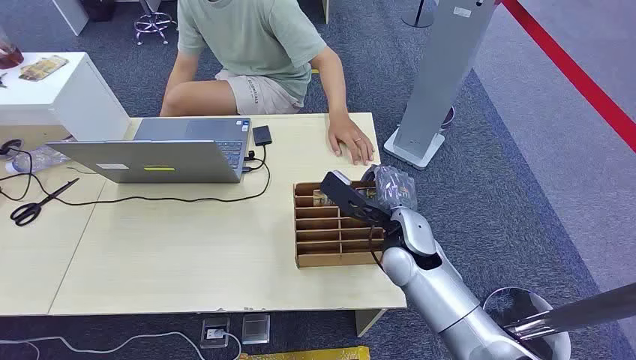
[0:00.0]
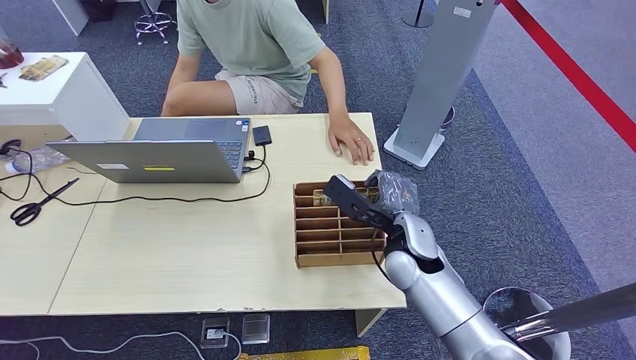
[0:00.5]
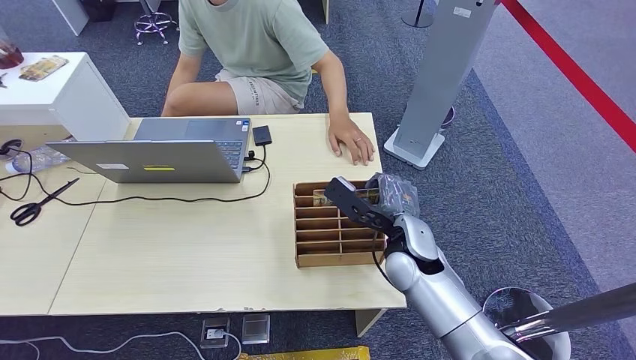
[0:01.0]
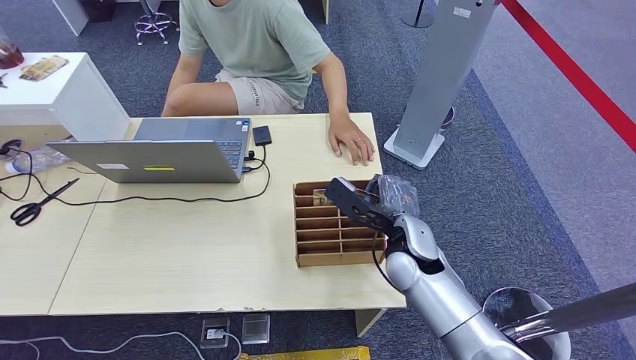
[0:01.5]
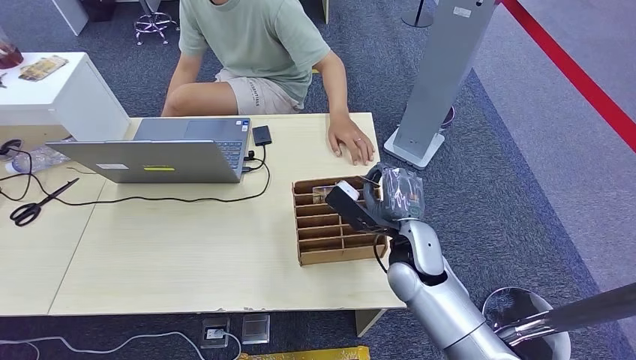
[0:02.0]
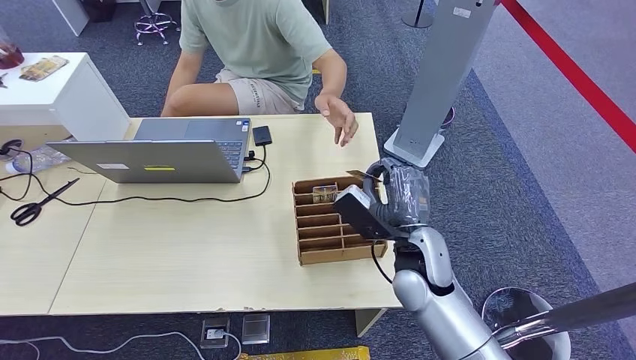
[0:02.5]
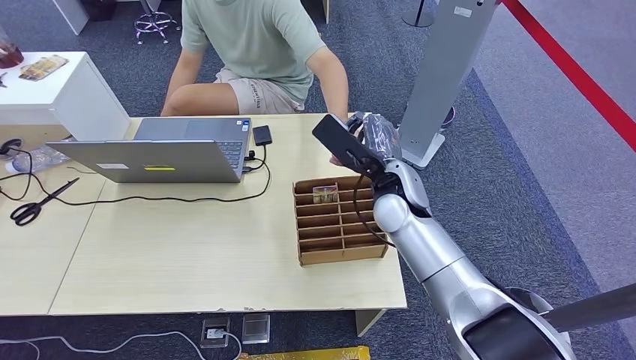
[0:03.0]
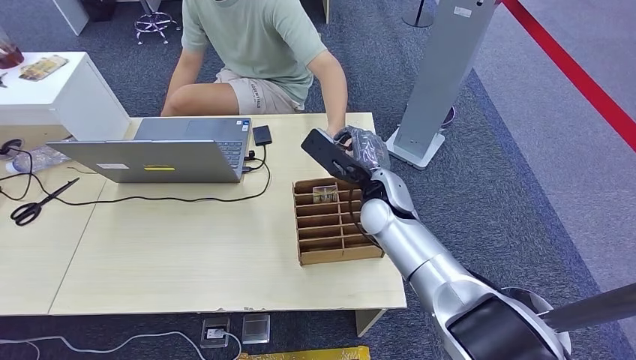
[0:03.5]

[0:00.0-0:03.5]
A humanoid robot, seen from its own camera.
Step, 0:00.0 to 0:02.0: Pick up the key card from the card box.
Step, 0:03.0 to 0:03.5: Hand the key card to the target.
0:02.0 to 0:03.5: The right hand shifts about 10 cm forward.

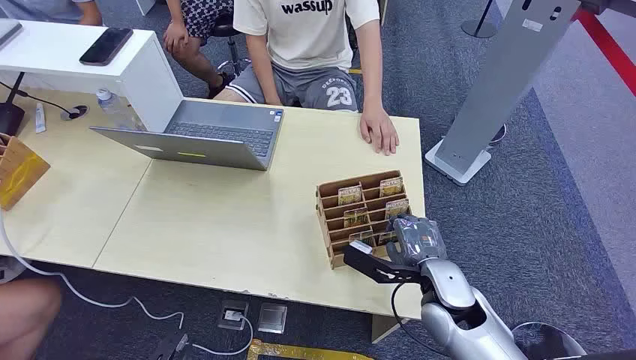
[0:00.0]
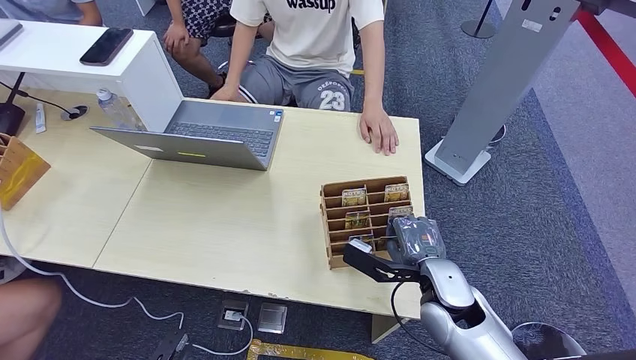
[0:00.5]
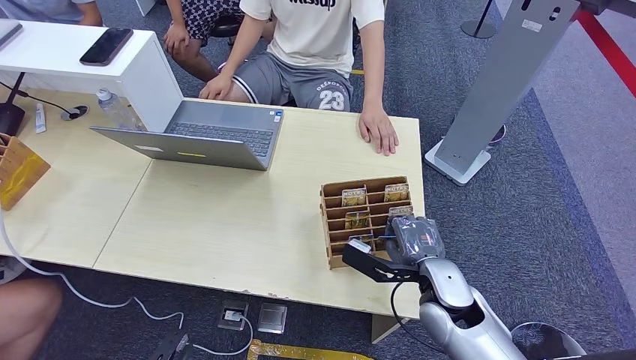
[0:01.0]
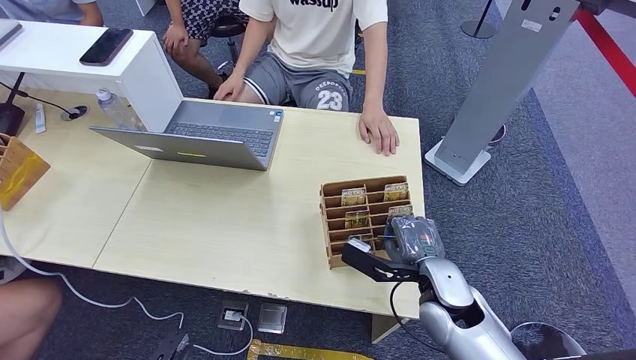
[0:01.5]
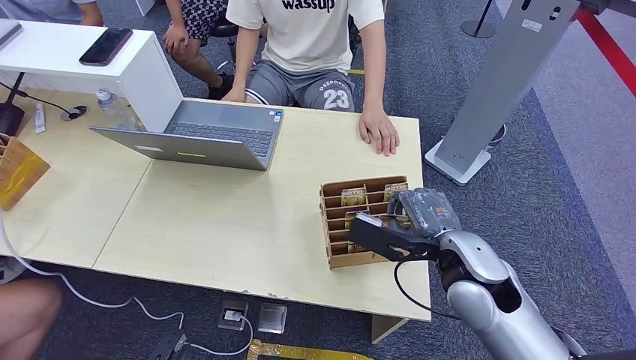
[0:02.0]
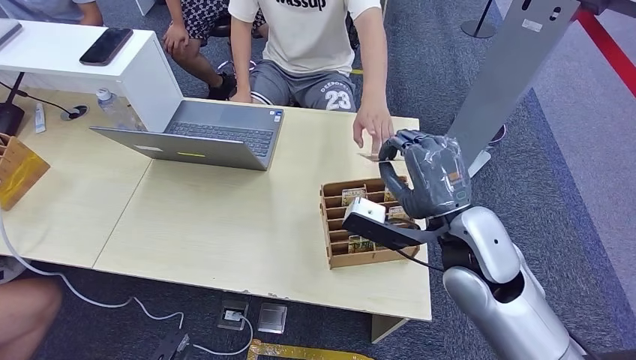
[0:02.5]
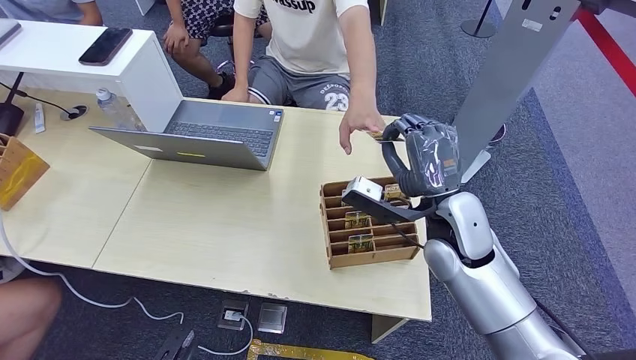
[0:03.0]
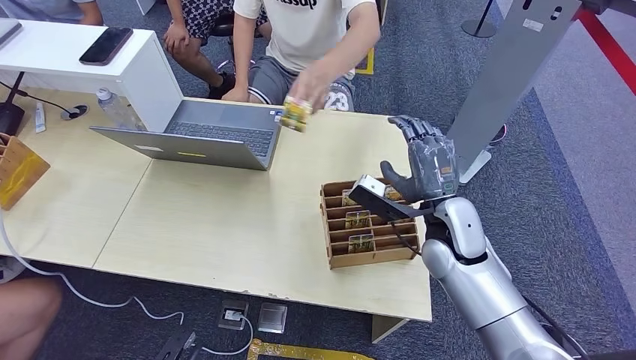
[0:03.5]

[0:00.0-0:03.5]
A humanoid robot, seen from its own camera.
Step, 0:00.0 to 0:02.0: Pick up the key card from the card box.
Step, 0:02.5 to 0:03.5: Hand the key card to the target.
0:02.0 to 0:03.5: The right hand moves forward, roughly 5 cm.

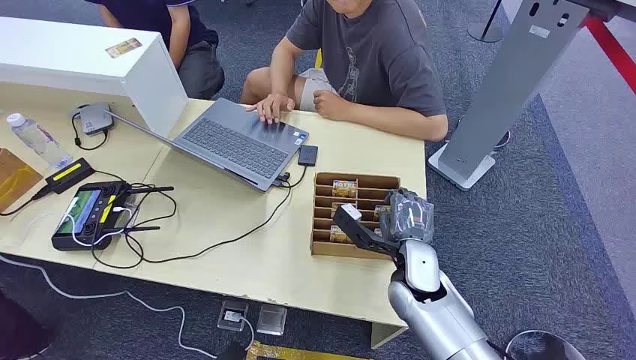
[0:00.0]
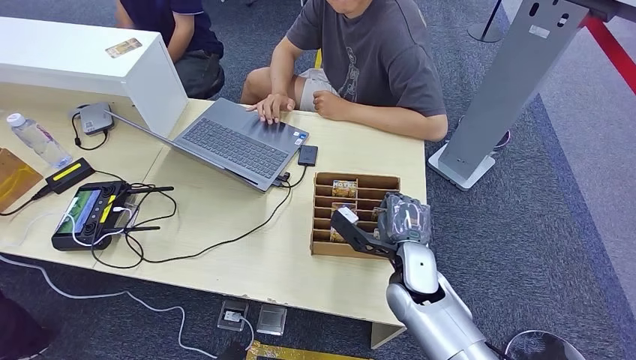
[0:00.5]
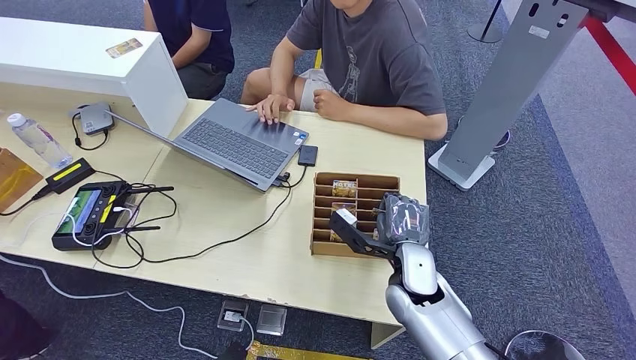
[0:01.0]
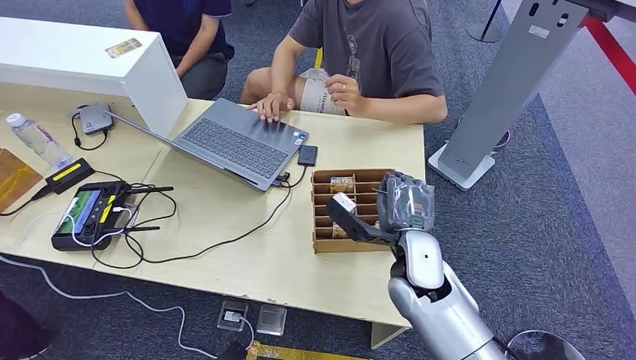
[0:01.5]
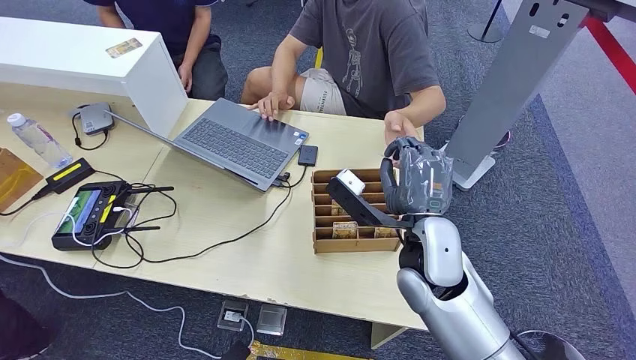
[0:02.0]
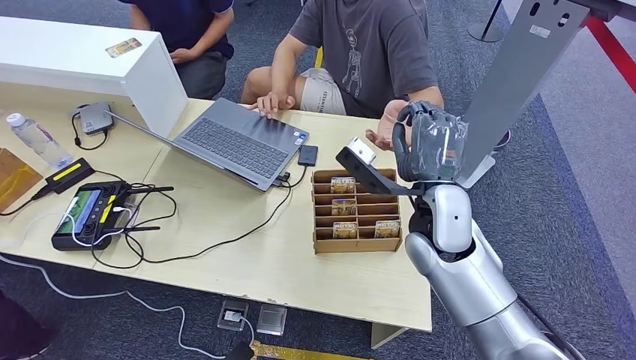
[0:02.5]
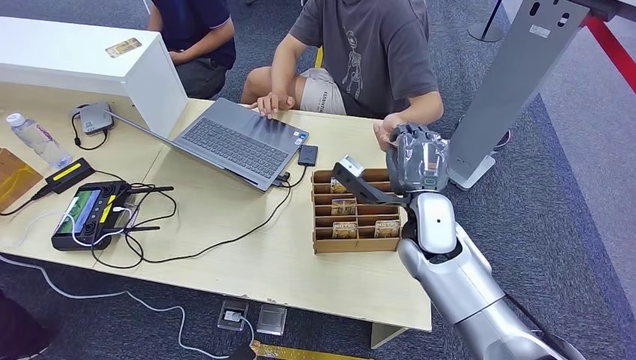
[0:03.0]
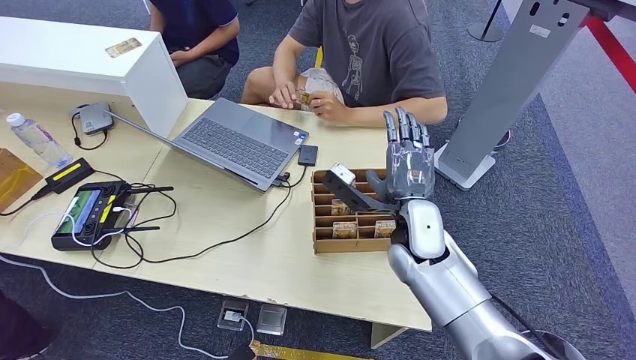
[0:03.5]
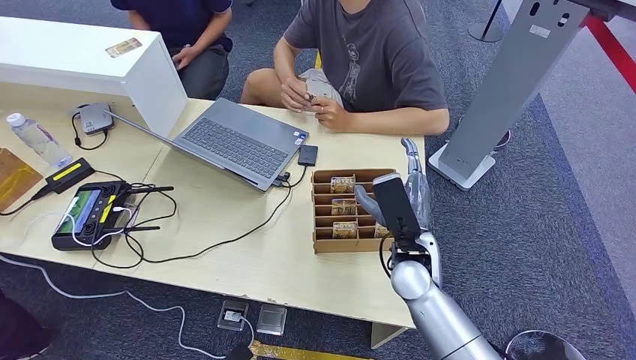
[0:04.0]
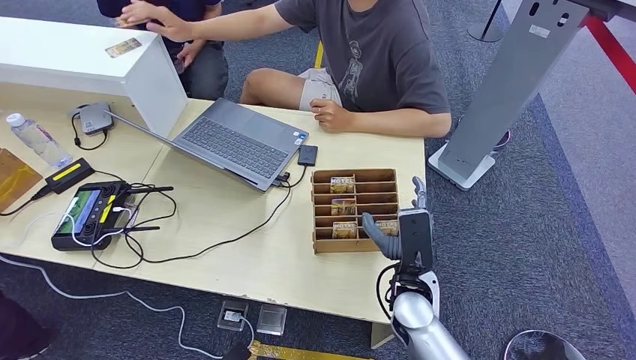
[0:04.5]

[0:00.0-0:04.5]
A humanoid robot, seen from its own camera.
Step, 0:00.0 to 0:01.5: Pick up the key card from the card box.
Step, 0:02.5 to 0:04.5: Hand the key card to the target.
0:02.0 to 0:04.5: The right hand heads downward, covering about 10 cm.
